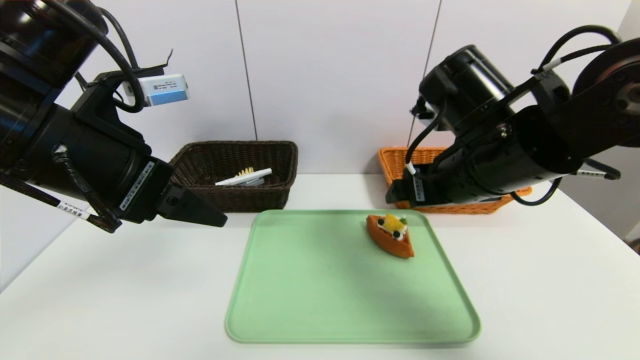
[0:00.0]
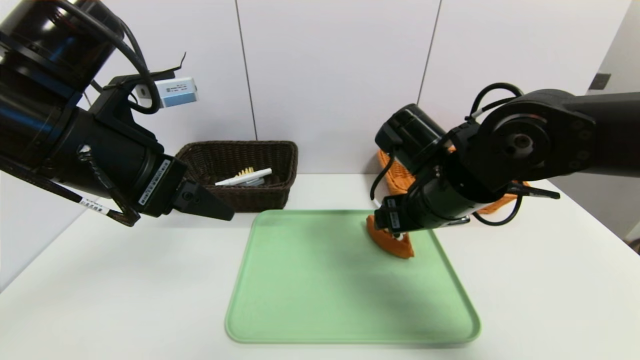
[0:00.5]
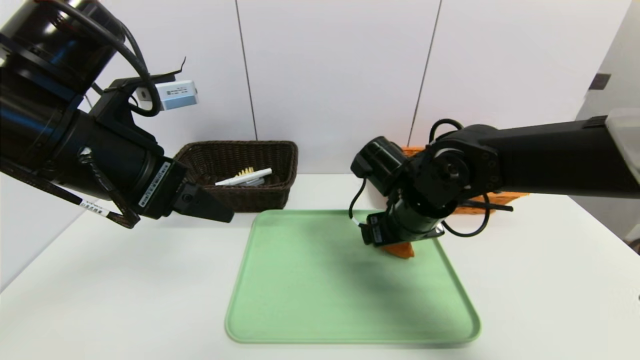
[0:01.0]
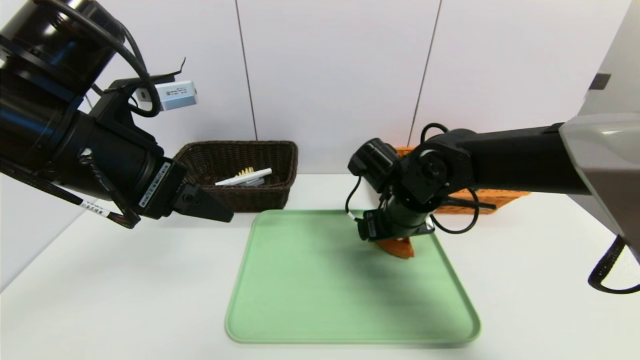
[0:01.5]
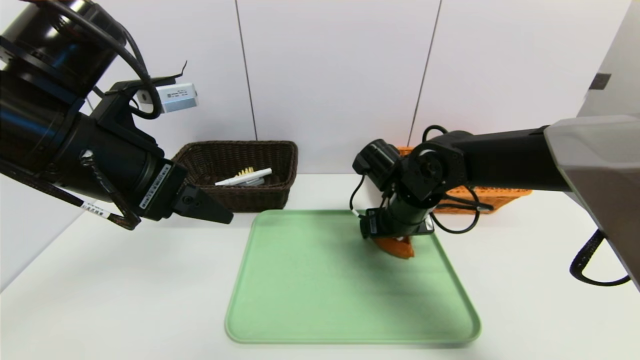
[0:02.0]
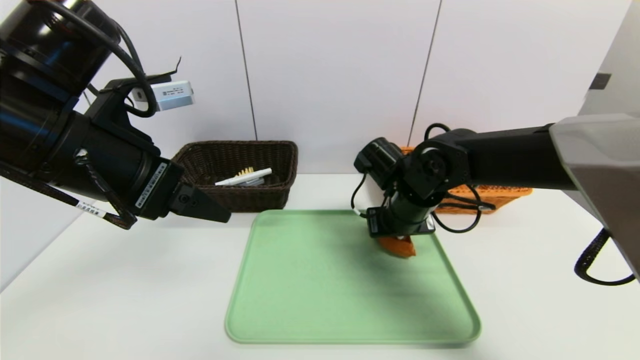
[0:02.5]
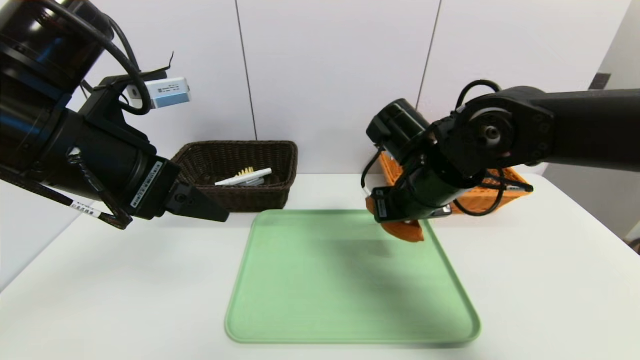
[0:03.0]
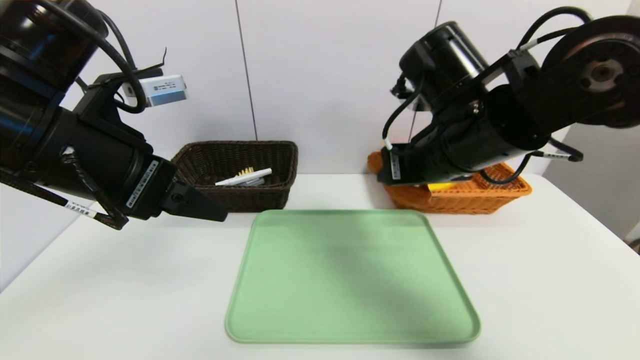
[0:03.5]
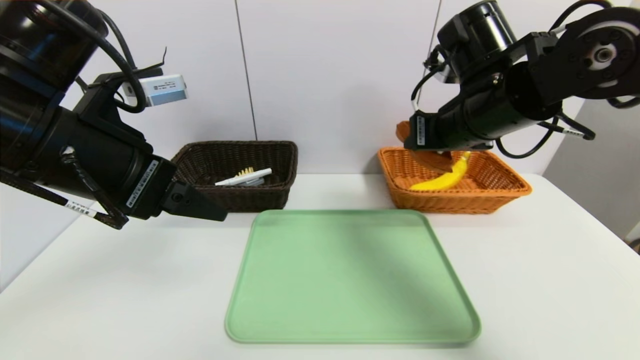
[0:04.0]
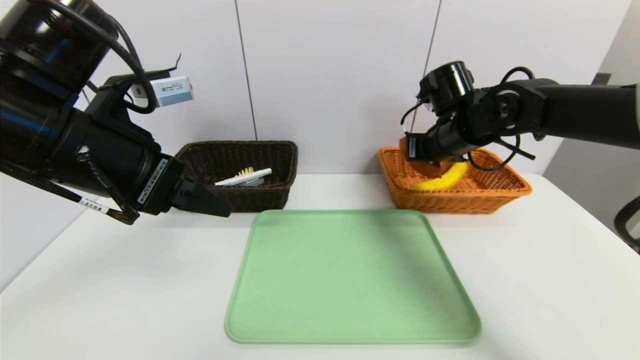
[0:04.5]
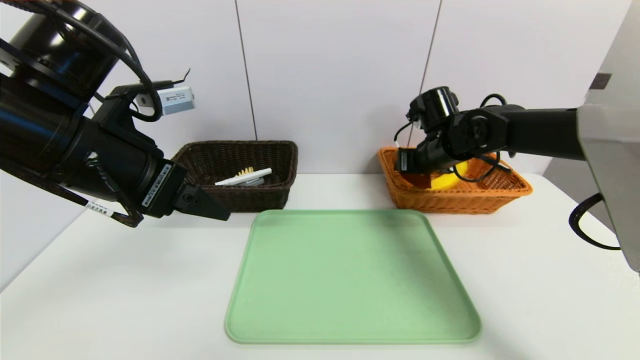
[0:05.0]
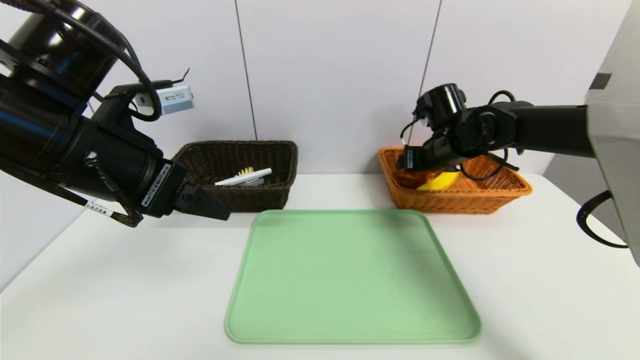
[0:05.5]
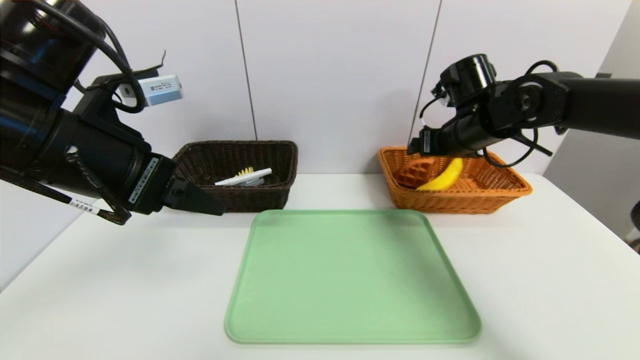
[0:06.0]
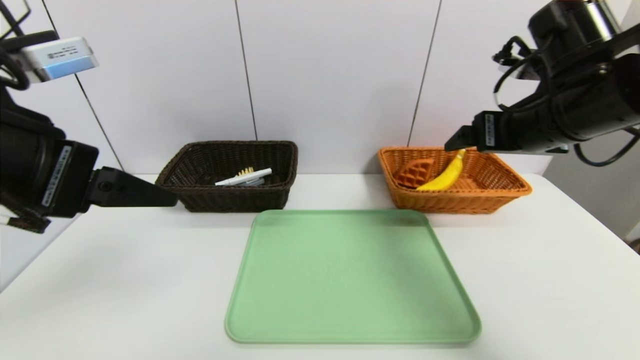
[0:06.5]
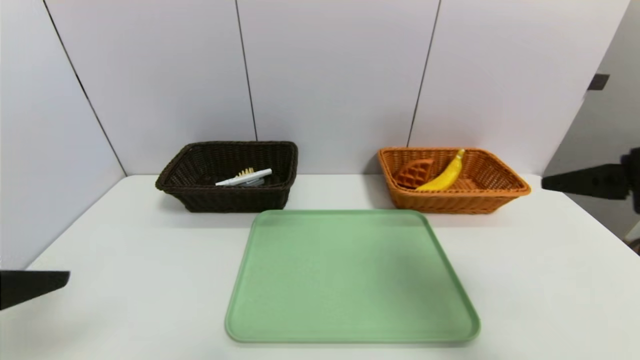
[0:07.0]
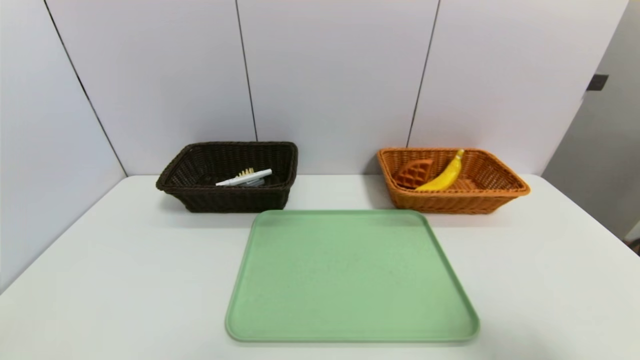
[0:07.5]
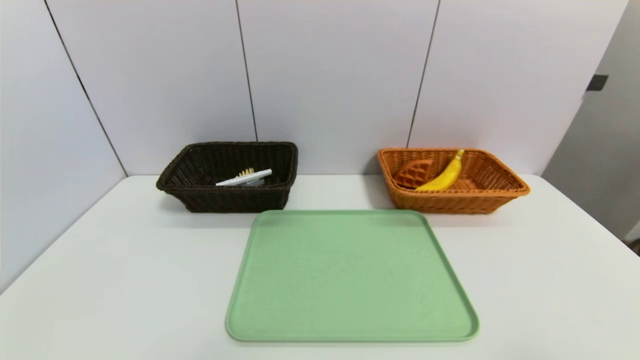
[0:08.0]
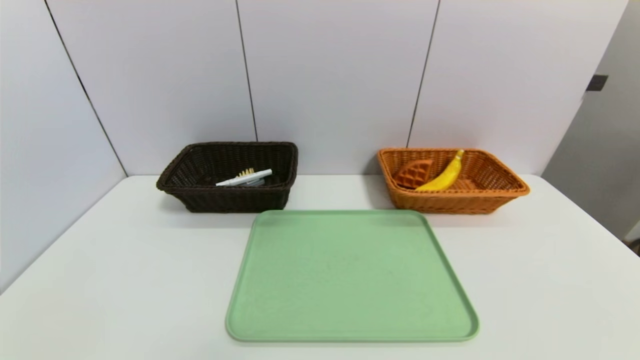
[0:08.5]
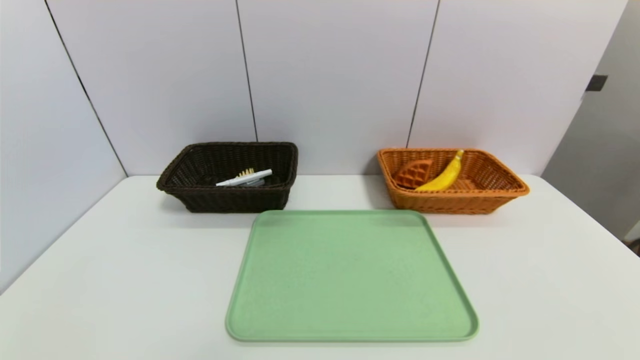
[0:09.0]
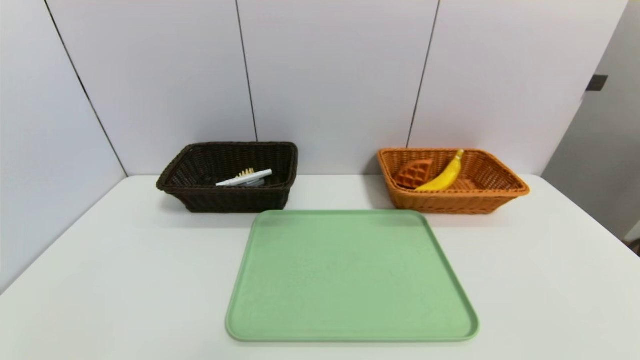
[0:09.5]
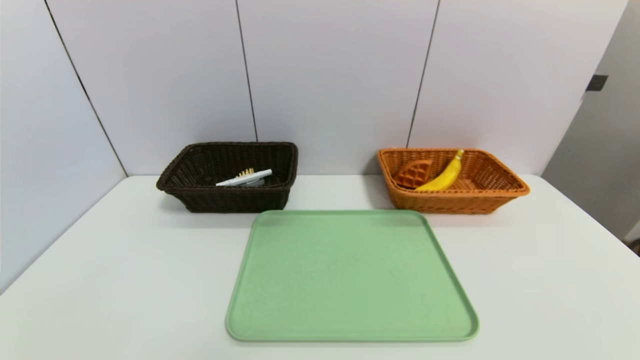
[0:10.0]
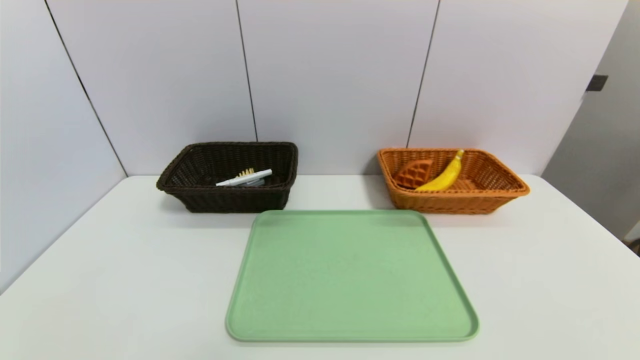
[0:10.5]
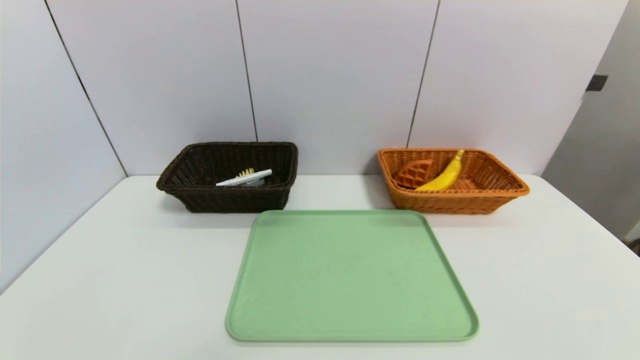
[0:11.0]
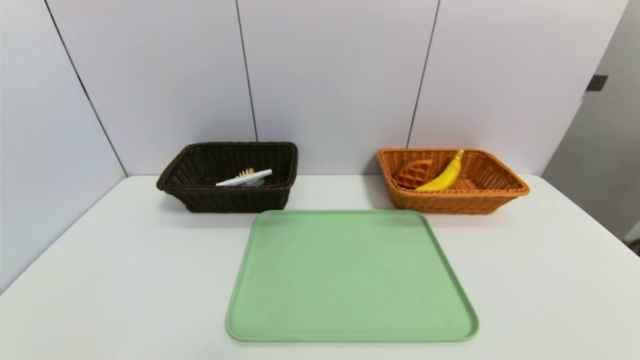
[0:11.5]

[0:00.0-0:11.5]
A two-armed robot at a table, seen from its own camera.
Task of the whole recording: place the food in the right basket with the right gripper, and place the non food items in the left basket with the left gripper.
Step, 0:00.0 to 0:05.5: Grasp the waffle and put it in the right basket.
0:00.0 to 0:02.0: The right gripper travels downward and forward by approximately 15 cm.
0:02.0 to 0:04.0: The right gripper moves upward, roughly 15 cm, and closes up.
0:04.0 to 0:06.0: The right gripper heads forward, downward and to the right, covering about 10 cm, and opens.
0:06.0 to 0:07.5: The left gripper shifts approximately 25 cm backward and to the left, while the right gripper moves backward, approximately 35 cm.
0:07.5 to 0:09.5: The right gripper shifts roughly 20 cm downward and backward.
